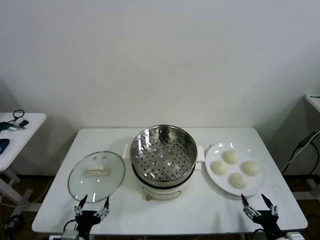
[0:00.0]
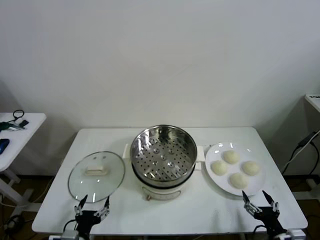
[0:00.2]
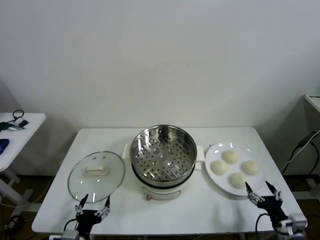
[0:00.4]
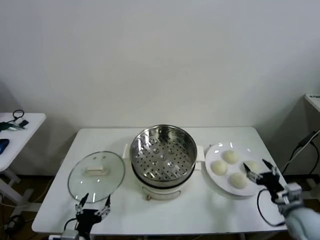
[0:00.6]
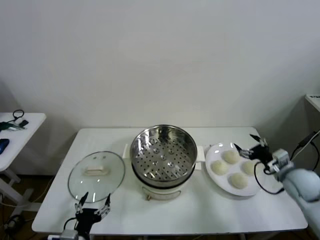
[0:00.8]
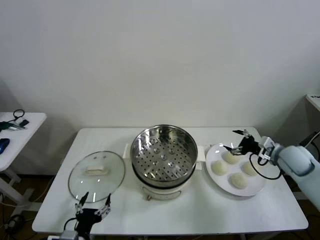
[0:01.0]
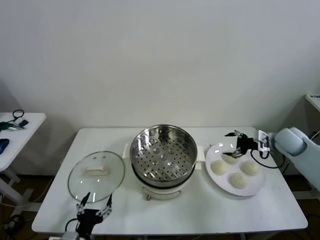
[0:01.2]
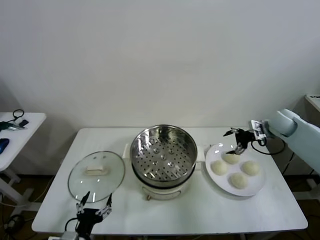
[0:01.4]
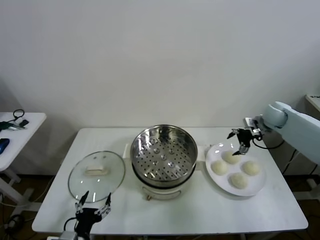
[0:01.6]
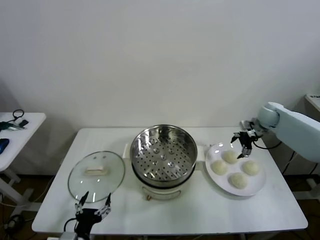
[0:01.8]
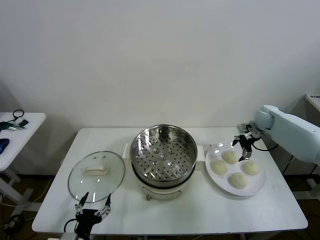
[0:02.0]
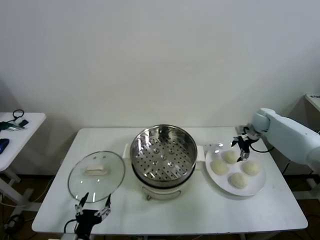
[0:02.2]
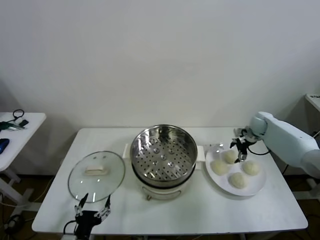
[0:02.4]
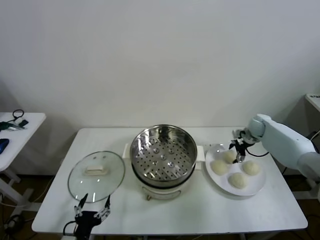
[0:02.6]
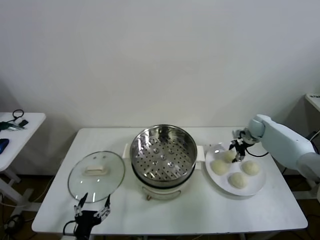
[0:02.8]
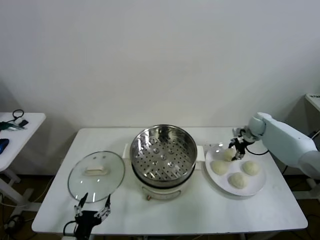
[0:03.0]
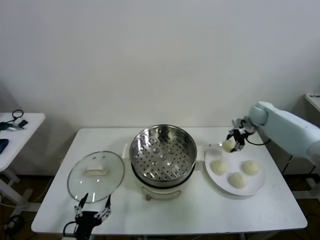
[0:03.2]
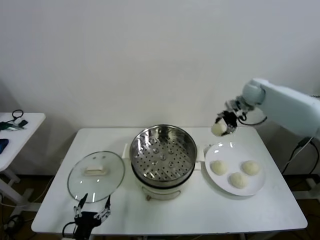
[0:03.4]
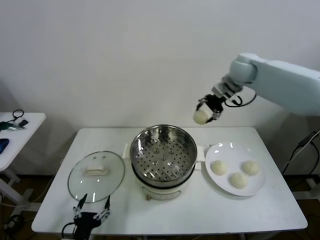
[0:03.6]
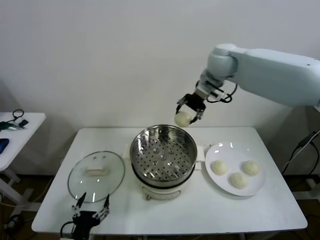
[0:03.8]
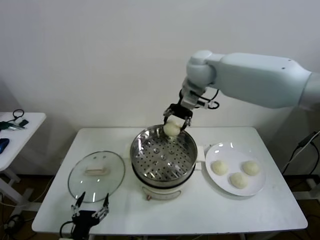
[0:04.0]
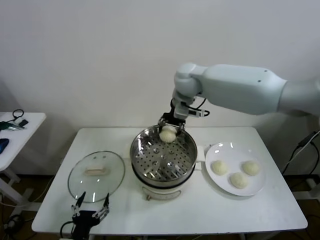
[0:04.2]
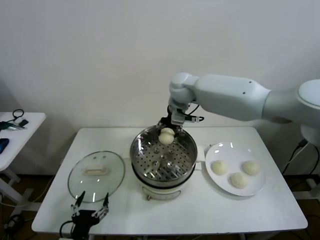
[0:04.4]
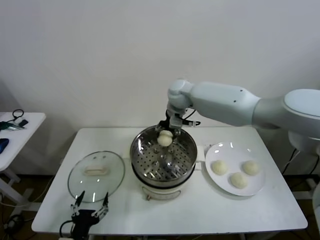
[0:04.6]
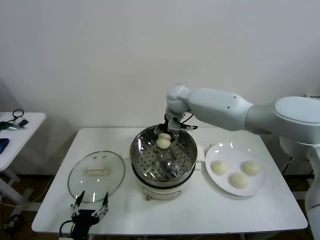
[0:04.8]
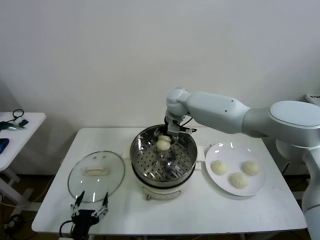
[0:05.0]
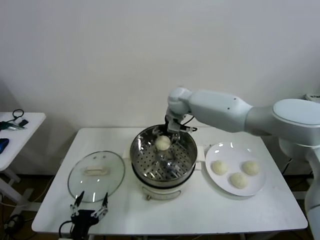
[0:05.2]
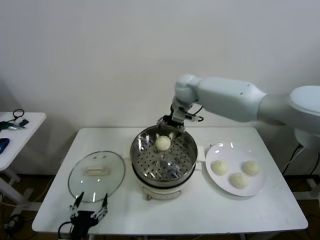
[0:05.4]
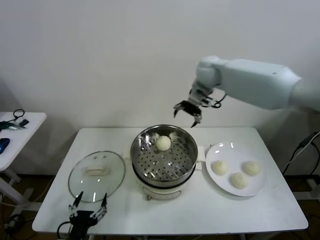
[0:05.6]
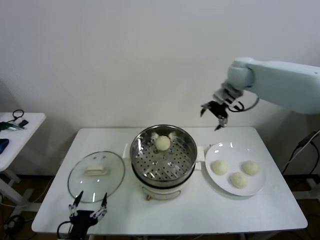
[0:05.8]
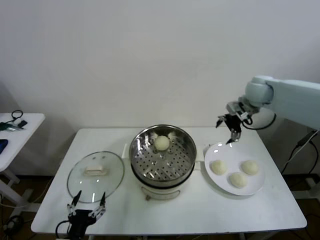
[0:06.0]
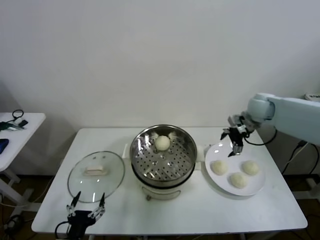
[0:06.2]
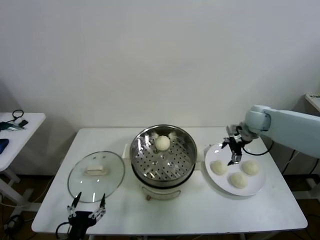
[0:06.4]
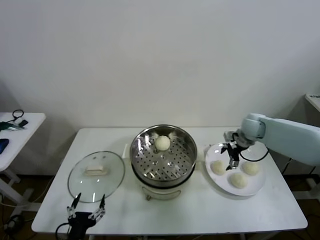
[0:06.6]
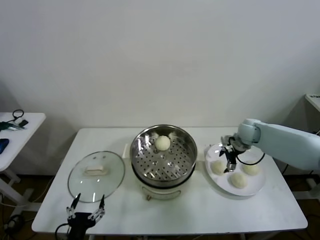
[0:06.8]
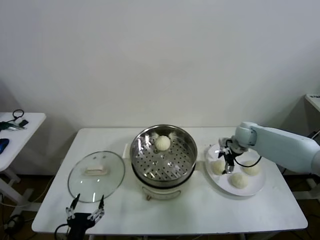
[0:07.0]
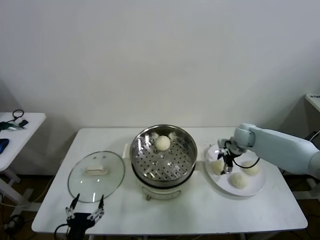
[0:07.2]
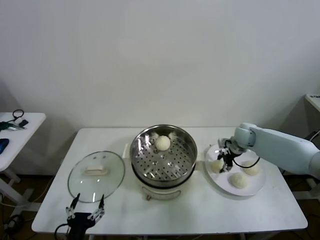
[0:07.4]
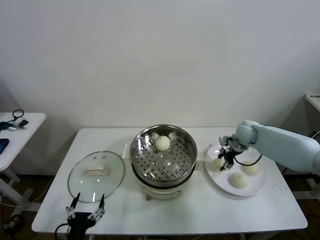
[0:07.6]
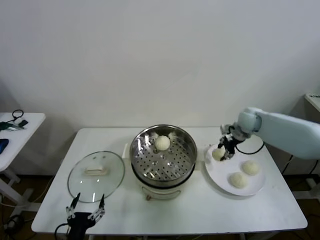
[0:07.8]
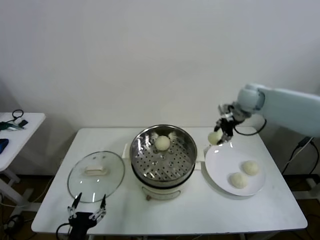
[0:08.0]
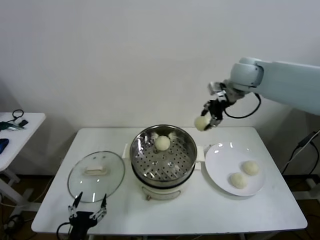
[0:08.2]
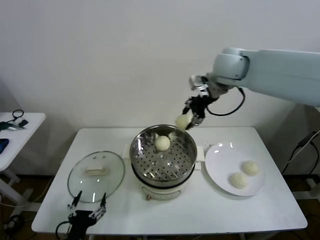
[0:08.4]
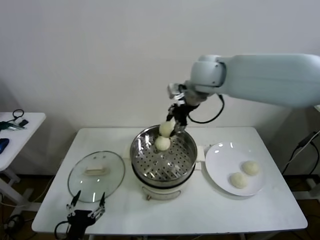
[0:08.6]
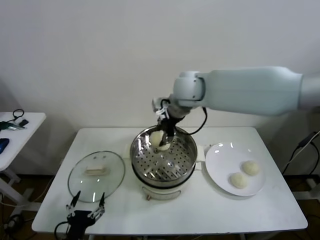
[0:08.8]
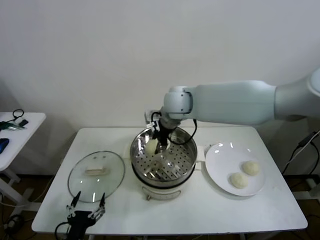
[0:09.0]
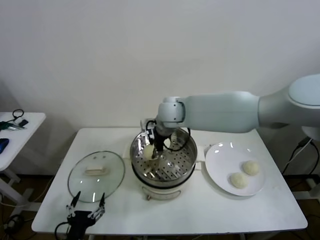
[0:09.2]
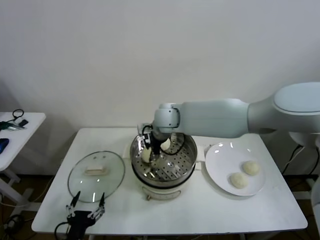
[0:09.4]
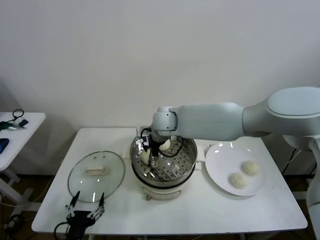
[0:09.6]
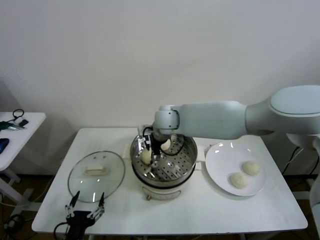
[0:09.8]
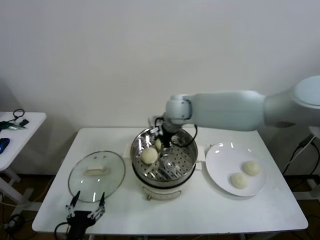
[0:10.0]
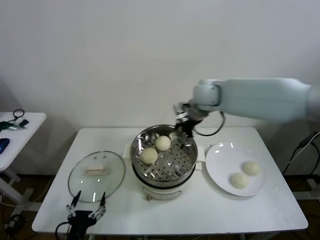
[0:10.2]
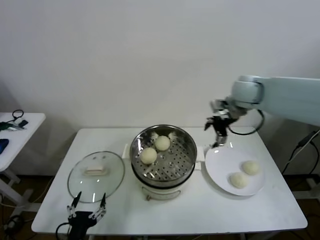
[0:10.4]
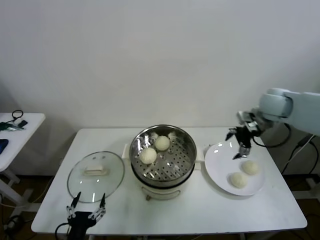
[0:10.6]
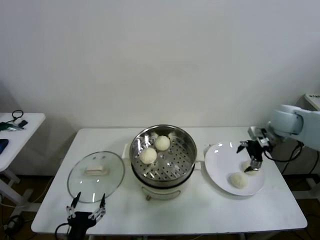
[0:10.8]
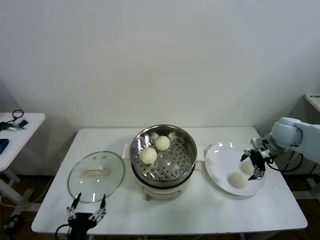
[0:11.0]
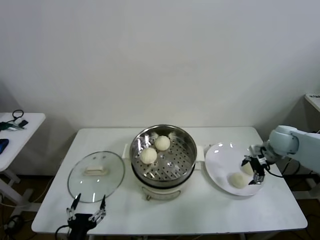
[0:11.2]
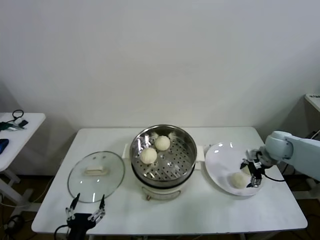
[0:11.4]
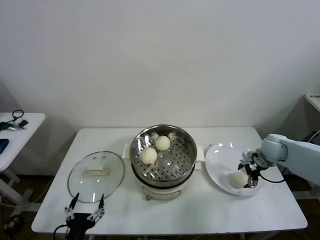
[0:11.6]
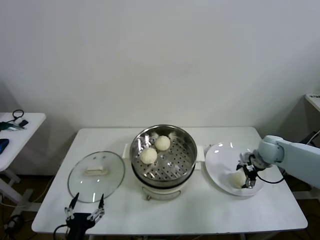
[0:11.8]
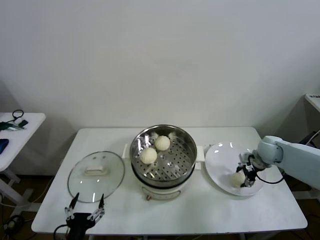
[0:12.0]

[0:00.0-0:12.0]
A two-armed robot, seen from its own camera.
Task of the whole recording: take steamed baozi put them in steamer then cover it.
Step, 0:00.0 to 0:03.0: Grasp the baozi in the plate with right gripper.
Step, 0:03.2 to 0:05.2: Place the baozi on the steamer with right gripper.
Step, 0:05.4 to 0:07.4: Grasp the baozi in the plate with right gripper.
Step, 0:07.8 to 0:09.8: Place the baozi on the steamer with right gripper.
0:01.6 to 0:03.0: The right gripper closes.
0:03.0 to 0:04.4: The right gripper heads to the left and upward, covering some 40 cm.
0:04.4 to 0:06.0: The right gripper travels to the right by roughly 25 cm, and opens up.
0:06.0 to 0:07.6: The right gripper shifts roughly 15 cm downward, and closes up.
0:07.6 to 0:09.0: The right gripper travels to the left and upward by roughly 35 cm.
0:09.0 to 0:10.4: The right gripper heads to the right, covering roughly 25 cm, and opens.
0:10.4 to 0:12.0: The right gripper goes some 25 cm downward and to the right, and closes up.

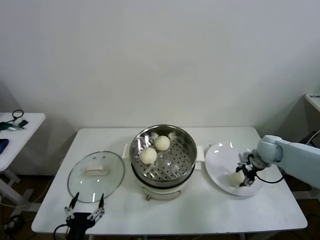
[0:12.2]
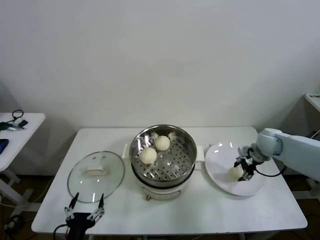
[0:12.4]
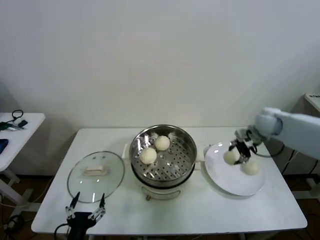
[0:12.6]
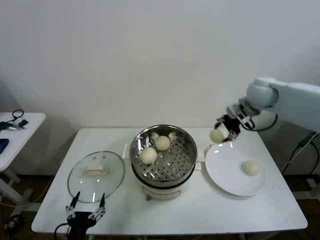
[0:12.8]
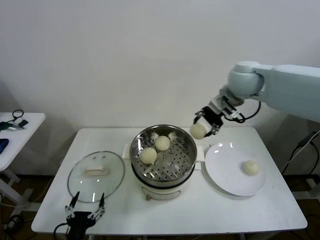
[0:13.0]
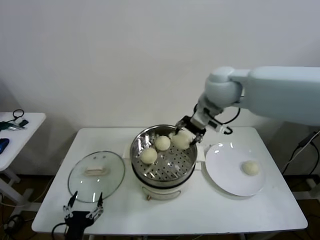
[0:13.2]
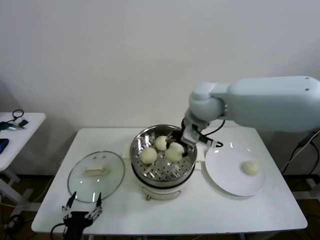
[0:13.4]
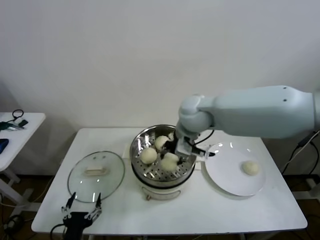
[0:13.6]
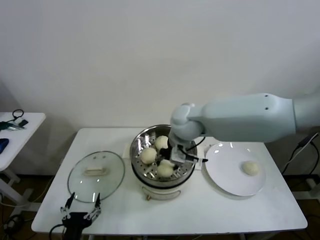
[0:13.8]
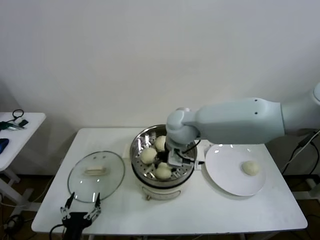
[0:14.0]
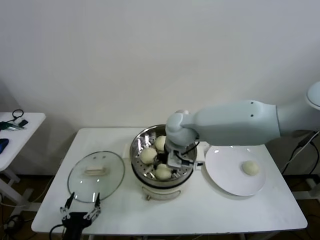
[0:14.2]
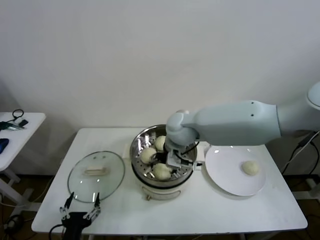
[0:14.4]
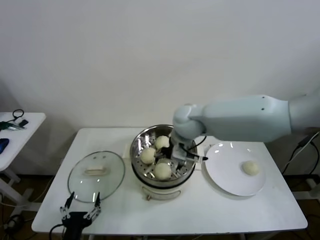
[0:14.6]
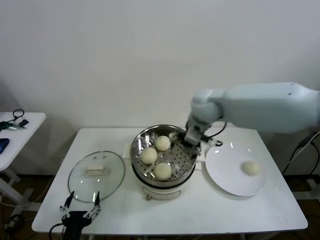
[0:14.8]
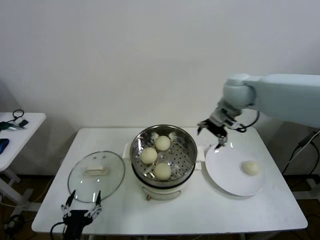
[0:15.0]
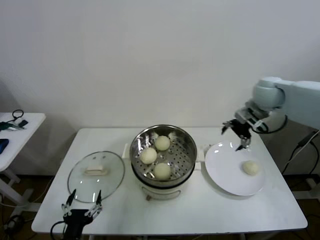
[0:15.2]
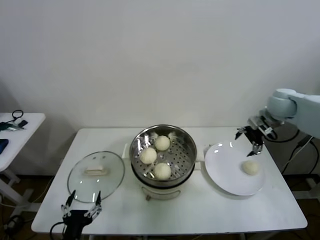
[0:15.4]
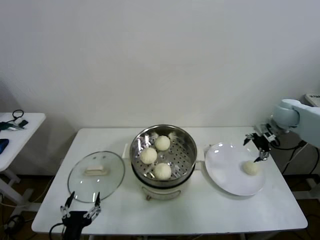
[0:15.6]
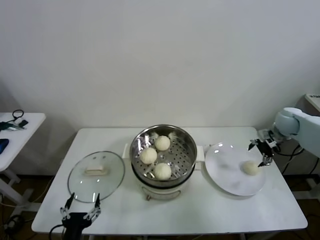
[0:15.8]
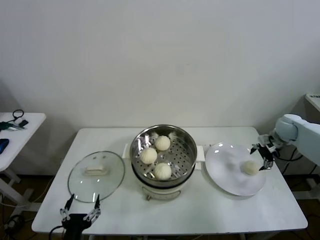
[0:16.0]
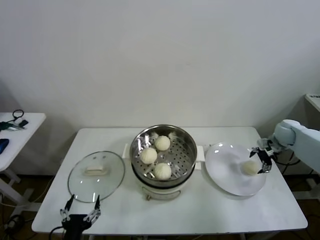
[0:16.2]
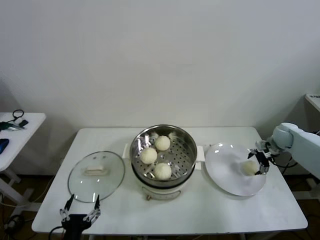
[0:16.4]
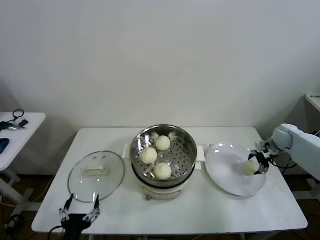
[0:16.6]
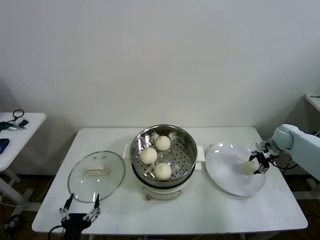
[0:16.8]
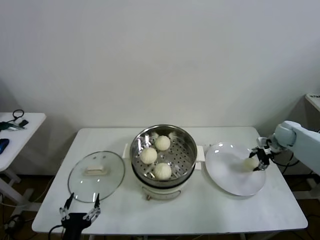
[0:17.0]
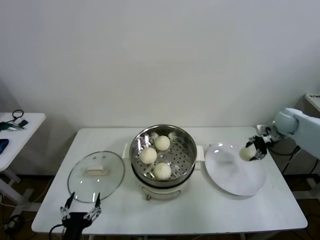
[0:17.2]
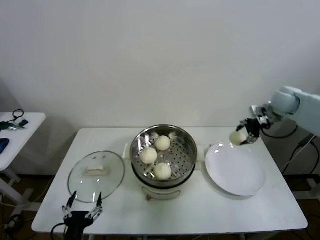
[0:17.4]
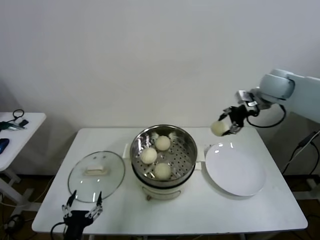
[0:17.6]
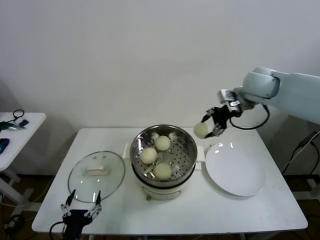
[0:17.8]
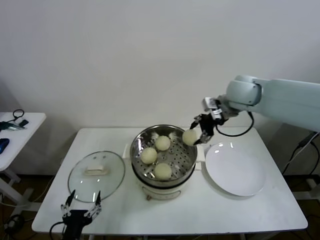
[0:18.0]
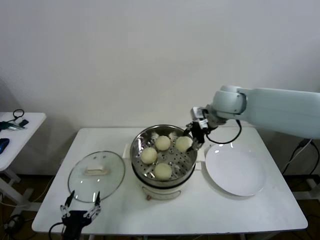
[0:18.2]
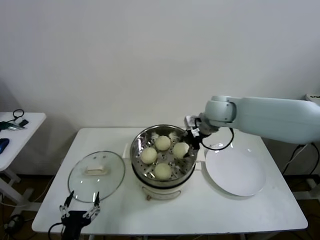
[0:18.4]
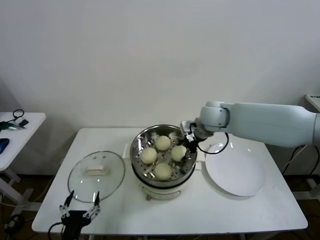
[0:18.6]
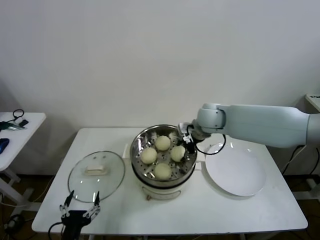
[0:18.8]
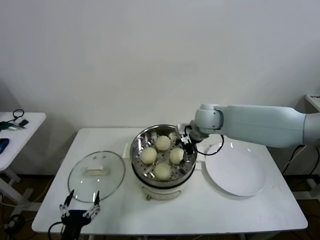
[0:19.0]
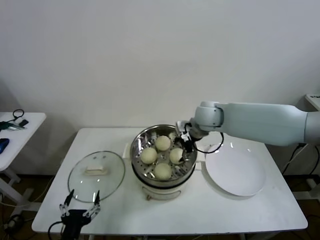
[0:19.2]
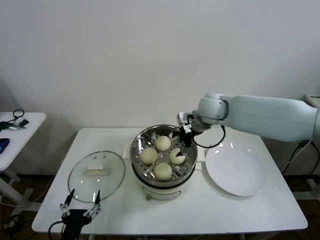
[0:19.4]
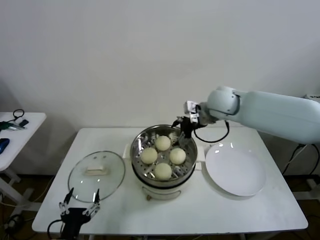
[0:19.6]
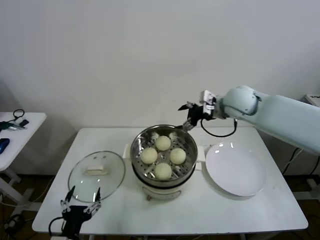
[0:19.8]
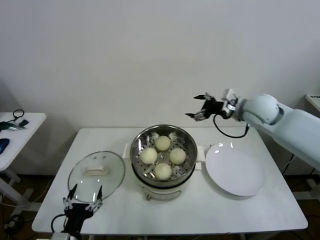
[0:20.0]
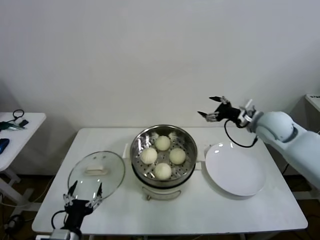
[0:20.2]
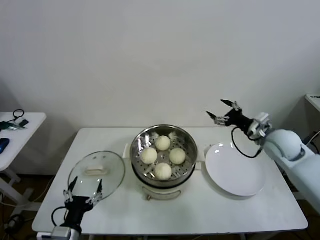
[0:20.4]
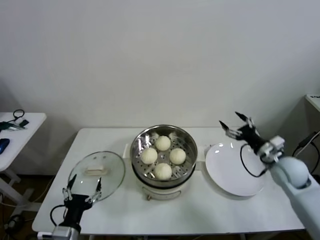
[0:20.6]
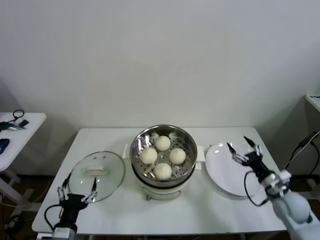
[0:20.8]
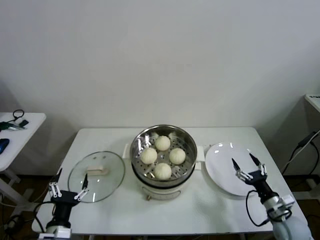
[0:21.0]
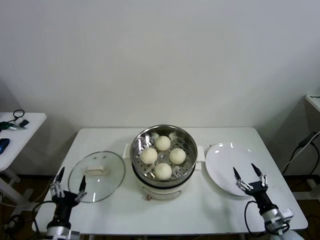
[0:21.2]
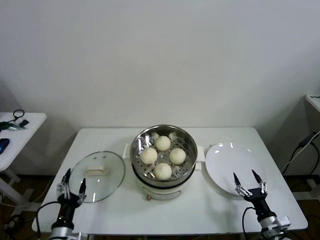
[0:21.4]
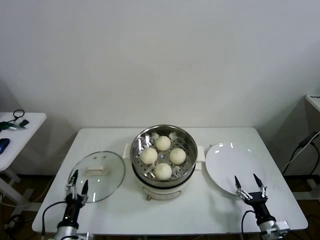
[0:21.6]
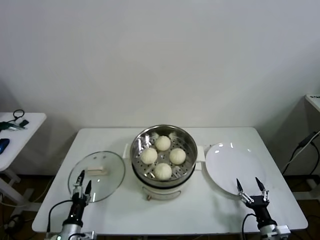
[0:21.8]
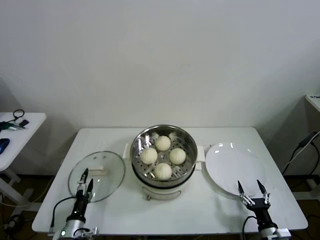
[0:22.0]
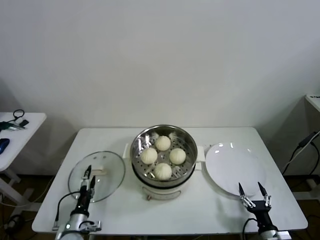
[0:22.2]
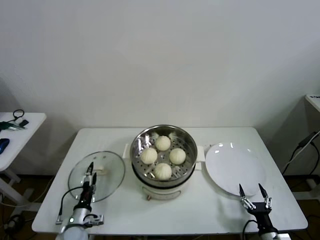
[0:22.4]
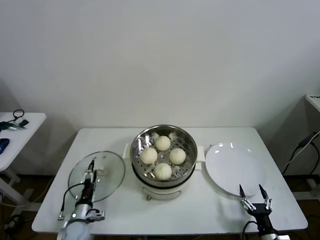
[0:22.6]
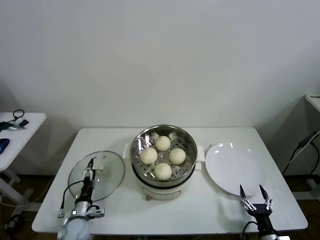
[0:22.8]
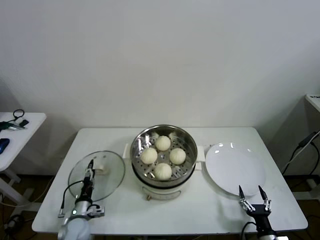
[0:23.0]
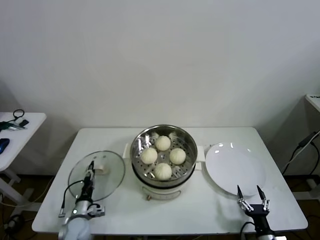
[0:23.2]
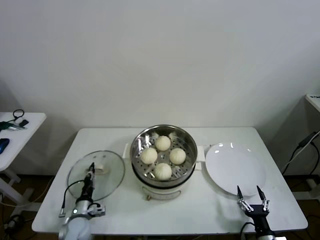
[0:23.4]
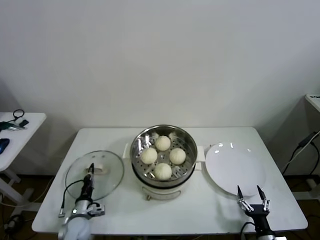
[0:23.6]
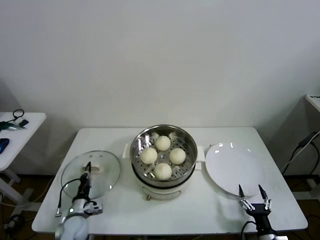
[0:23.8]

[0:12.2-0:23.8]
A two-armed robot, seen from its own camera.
Task of the whole recording: take steamed baozi put them in steamer then cover it.
Step, 0:12.4 to 0:14.4: Place the baozi on the steamer with right gripper.
Step, 0:14.6 to 0:16.8: Grasp the baozi in the plate with right gripper.
Step, 0:17.2 to 0:19.2: Place the baozi on the steamer with right gripper.
Step, 0:19.4 to 0:23.6: Grasp the pot lid with left gripper.
0:12.2 to 0:13.6: The right gripper moves to the left and upward, approximately 35 cm.
0:13.6 to 0:15.0: The right gripper heads to the right and forward, covering about 15 cm, and opens up.
0:15.0 to 0:16.6: The right gripper travels to the right and downward by some 35 cm.
0:16.6 to 0:18.0: The right gripper moves to the left and upward, about 35 cm, and closes up.
0:18.0 to 0:19.4: The right gripper is displaced to the left and downward by roughly 10 cm, and opens.
0:19.4 to 0:21.0: The right gripper moves downward, backward and to the right, about 50 cm; the left gripper changes place by roughly 5 cm.
0:21.0 to 0:22.4: The left gripper heads downward and forward, covering approximately 15 cm; the right gripper heads backward and downward, covering roughly 15 cm.
0:22.4 to 0:23.8: The left gripper closes.
